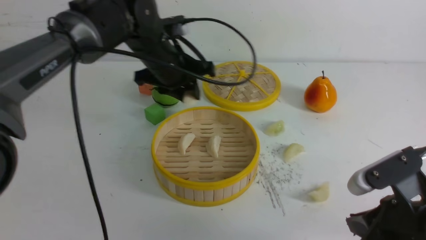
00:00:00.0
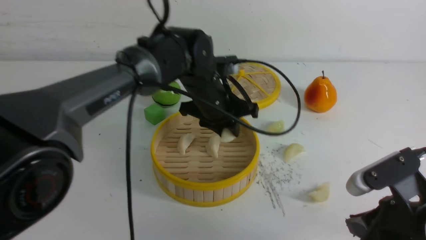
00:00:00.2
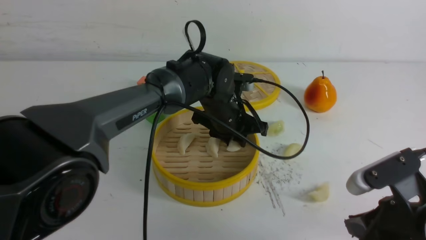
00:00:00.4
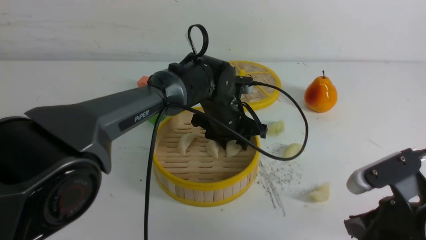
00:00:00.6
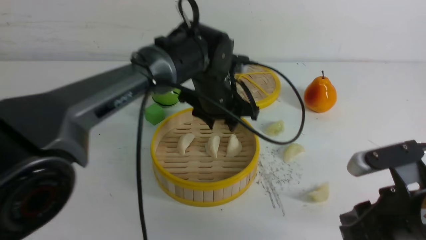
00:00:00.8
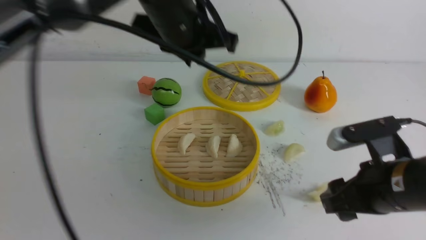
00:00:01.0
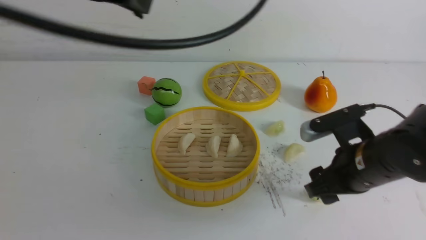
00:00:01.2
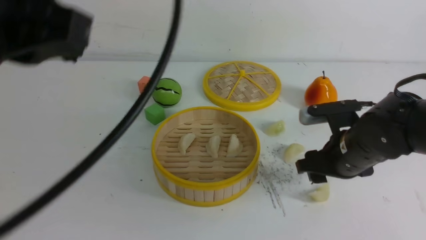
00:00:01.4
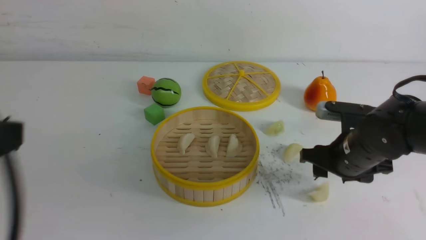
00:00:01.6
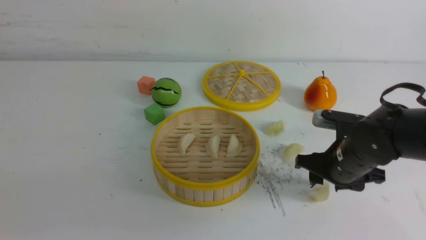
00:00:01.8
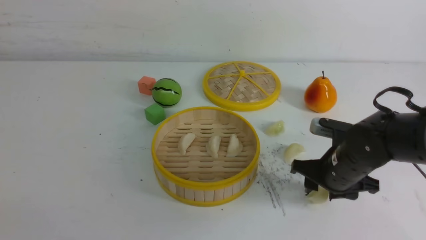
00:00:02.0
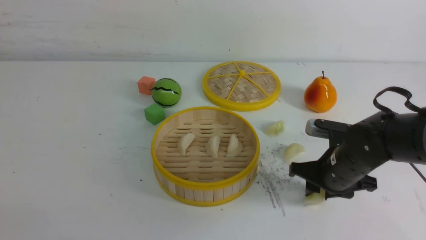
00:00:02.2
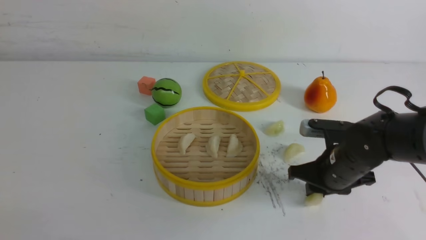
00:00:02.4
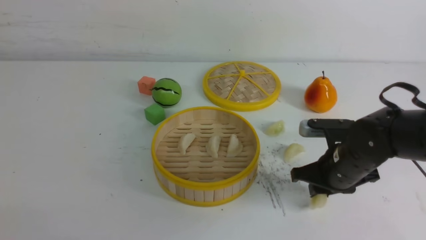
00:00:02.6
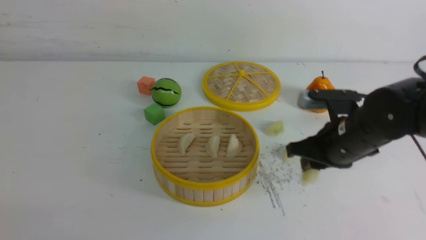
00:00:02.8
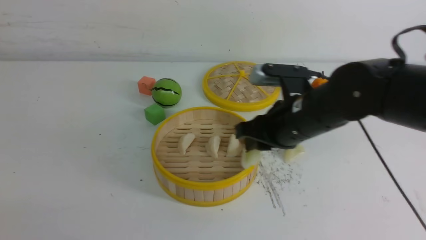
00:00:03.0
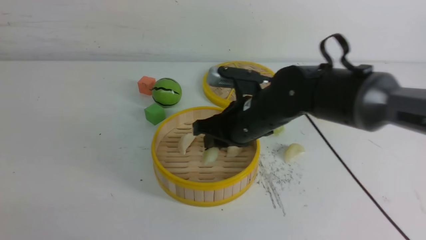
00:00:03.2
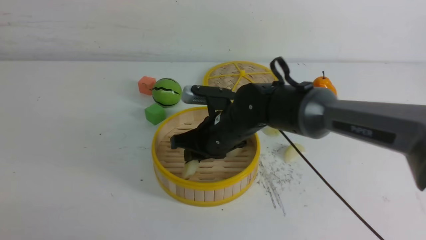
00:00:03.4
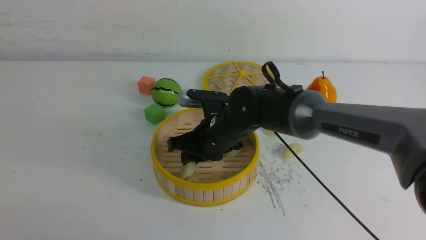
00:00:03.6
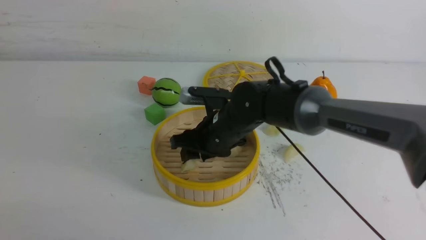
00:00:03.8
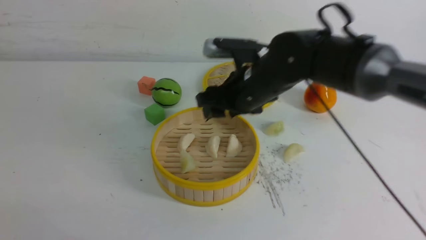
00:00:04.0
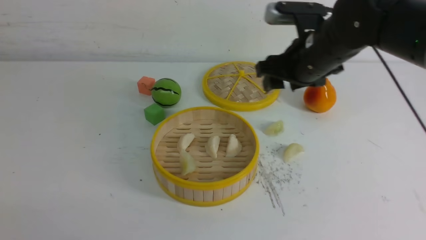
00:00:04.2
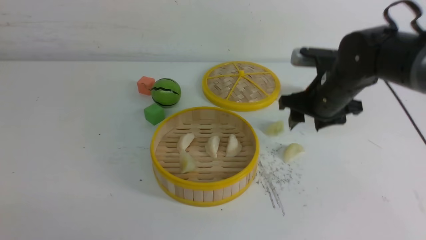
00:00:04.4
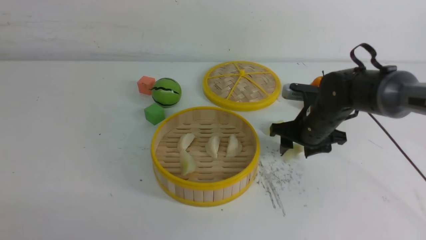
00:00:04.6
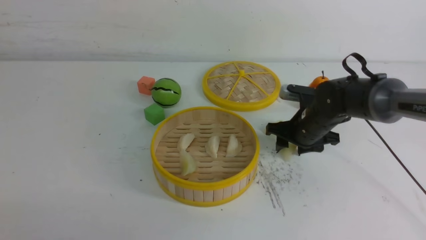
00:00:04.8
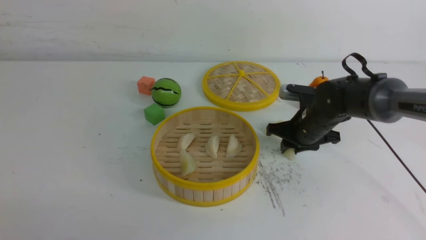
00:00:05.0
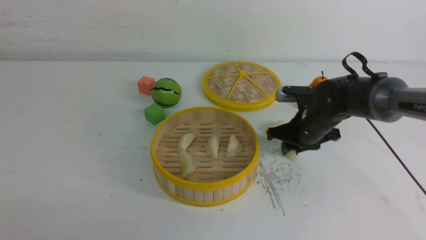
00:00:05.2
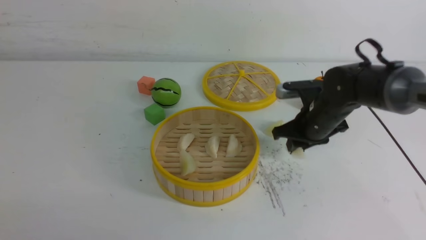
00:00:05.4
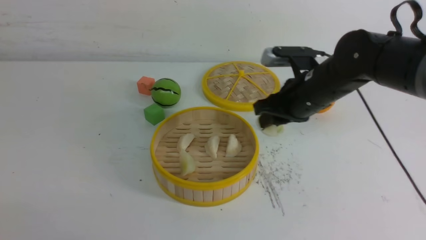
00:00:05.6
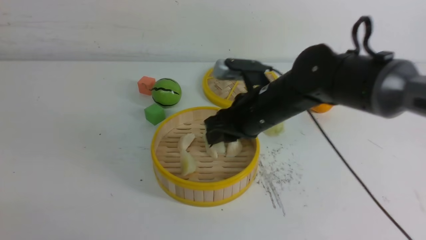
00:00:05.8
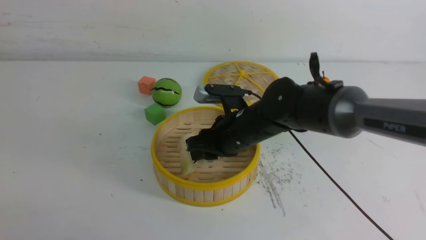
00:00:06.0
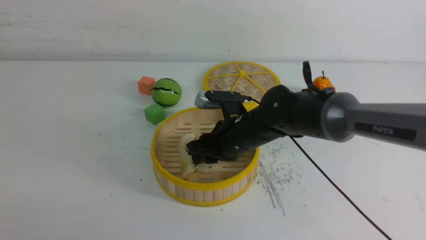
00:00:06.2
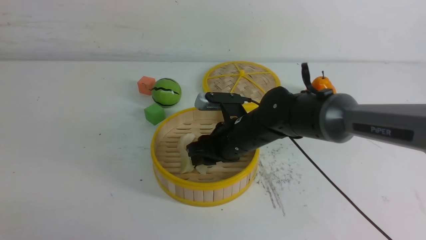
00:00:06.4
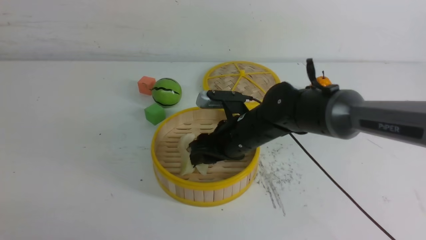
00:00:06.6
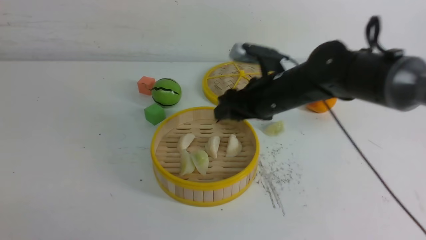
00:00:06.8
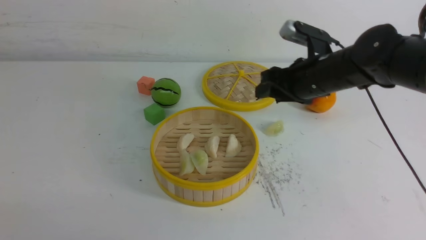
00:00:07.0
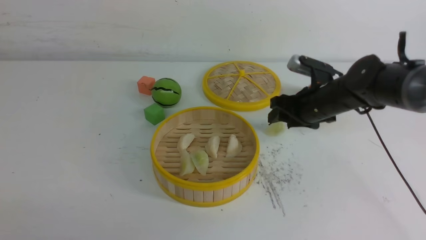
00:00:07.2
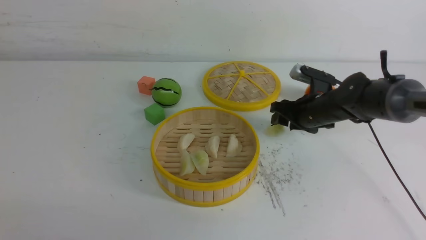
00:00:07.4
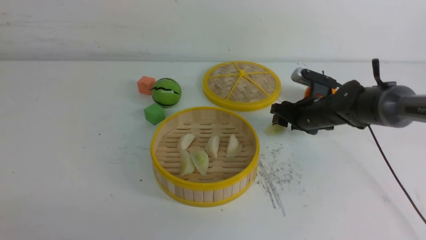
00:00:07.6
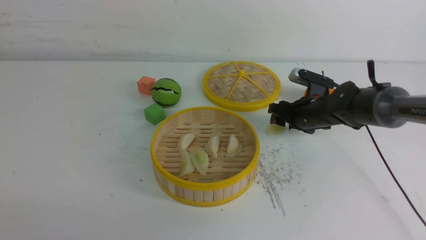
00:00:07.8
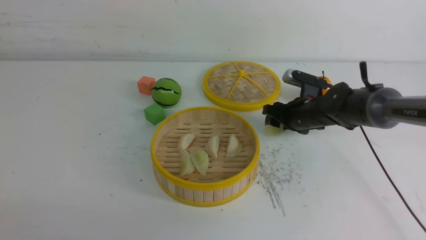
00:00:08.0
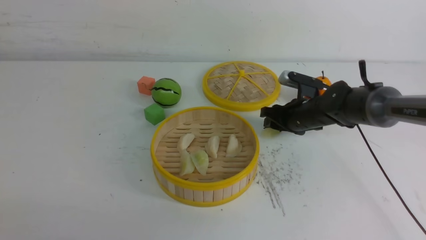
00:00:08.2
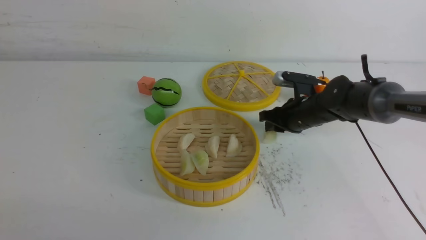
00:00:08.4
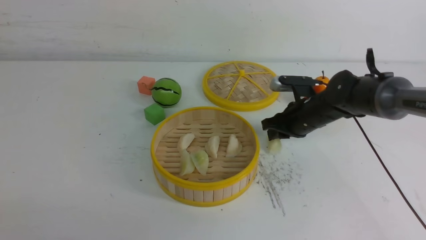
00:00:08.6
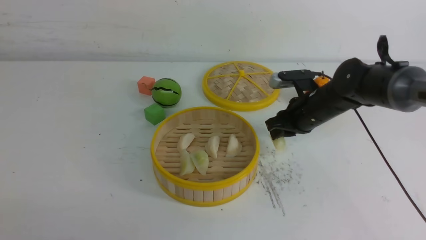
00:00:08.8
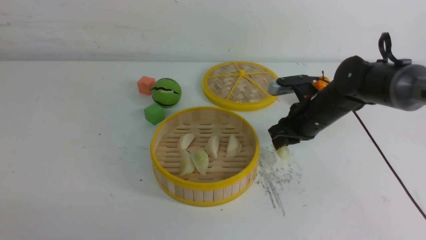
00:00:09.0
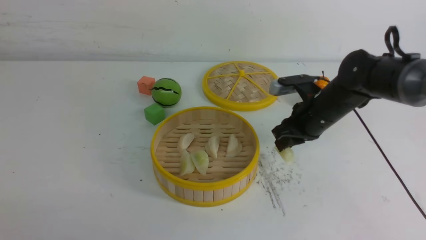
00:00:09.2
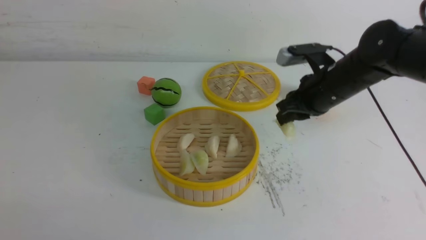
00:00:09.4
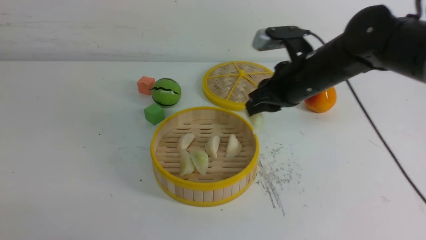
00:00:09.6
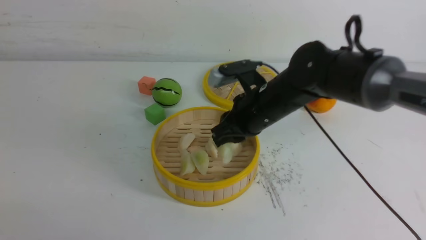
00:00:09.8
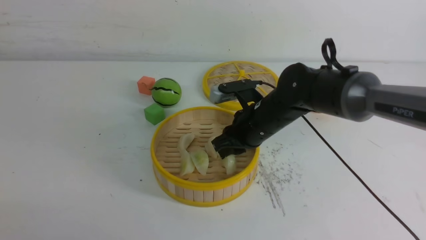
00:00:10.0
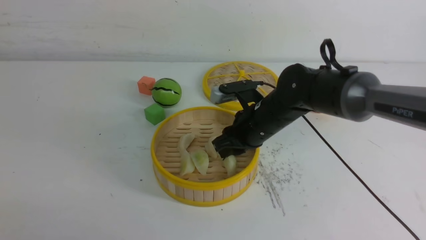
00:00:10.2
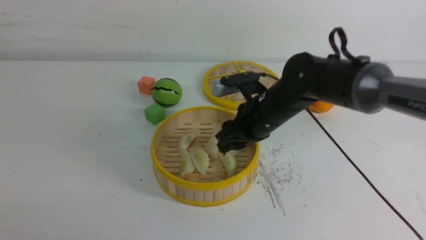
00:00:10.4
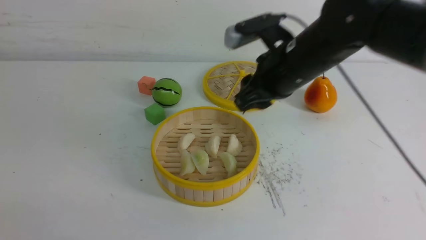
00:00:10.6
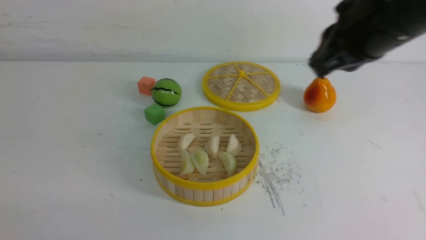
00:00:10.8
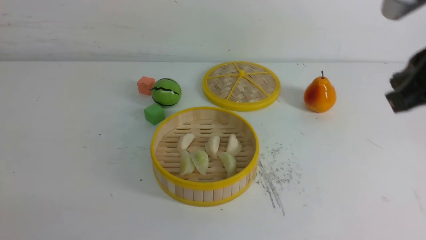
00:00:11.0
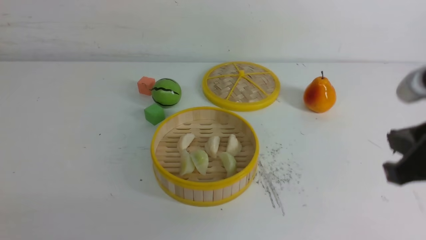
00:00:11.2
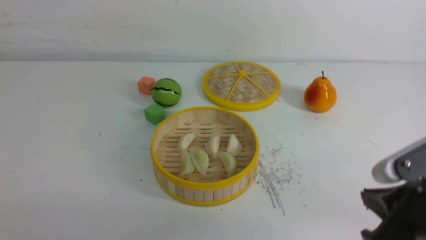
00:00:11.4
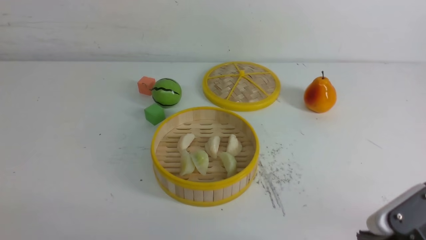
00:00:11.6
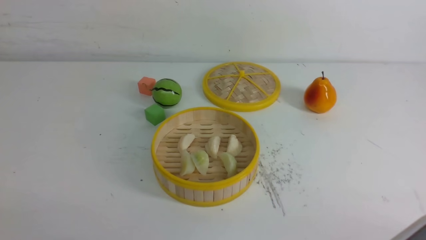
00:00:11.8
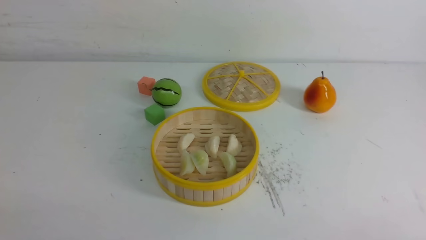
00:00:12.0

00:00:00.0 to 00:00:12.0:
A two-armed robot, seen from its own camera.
Task of the whole recording: put the dumplings into the steamer on the white table.
Step, 00:00:00.0 to 00:00:00.6: use the left arm to put the dumpling into the steamer.
Step, 00:00:00.8 to 00:00:02.6: use the right arm to grab a dumpling.
Step, 00:00:02.8 to 00:00:03.6: use the right arm to put the dumpling into the steamer.
Step, 00:00:03.8 to 00:00:05.2: use the right arm to grab a dumpling.
Step, 00:00:05.6 to 00:00:06.6: use the right arm to put the dumpling into the steamer.
00:00:00.0 to 00:00:01.6: The right gripper goes some 15 cm forward, and opens up. The left gripper heads backward and to the left, covering roughly 40 cm, and closes up.
00:00:01.6 to 00:00:03.0: The left gripper heads downward, covering about 10 cm; the right gripper is displaced to the left and upward by some 10 cm, and closes up.
00:00:03.0 to 00:00:04.4: The right gripper moves forward and to the right, roughly 10 cm, and opens its fingers.
00:00:04.4 to 00:00:06.0: The right gripper is displaced to the left by roughly 10 cm, and closes up.
00:00:06.0 to 00:00:07.6: The right gripper heads to the right and forward, covering roughly 20 cm, and opens its fingers.
00:00:07.6 to 00:00:09.0: The right gripper ends up roughly 5 cm from where it was, and closes.
00:00:09.0 to 00:00:10.4: The right gripper goes approximately 10 cm to the left and upward.
00:00:10.4 to 00:00:12.0: The right gripper is displaced backward and to the right by some 35 cm, and closes up.

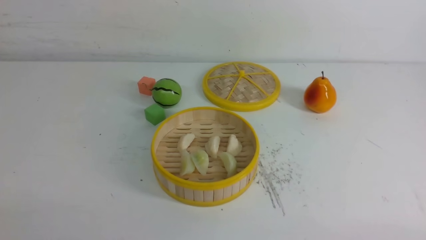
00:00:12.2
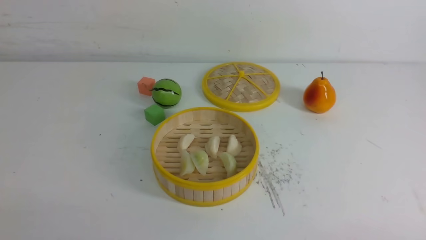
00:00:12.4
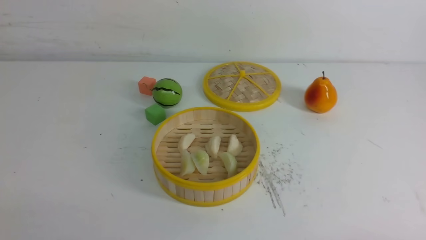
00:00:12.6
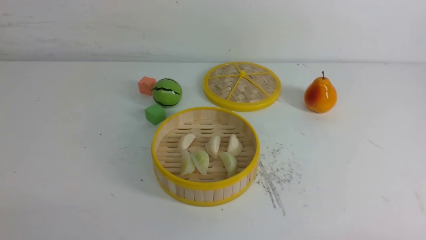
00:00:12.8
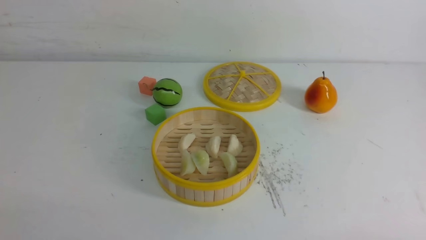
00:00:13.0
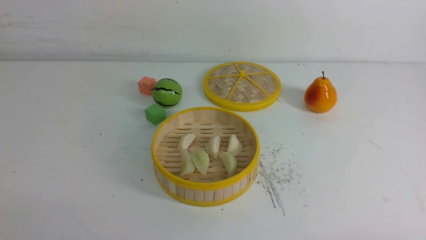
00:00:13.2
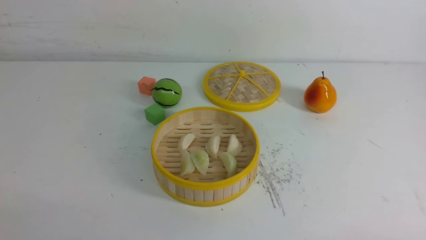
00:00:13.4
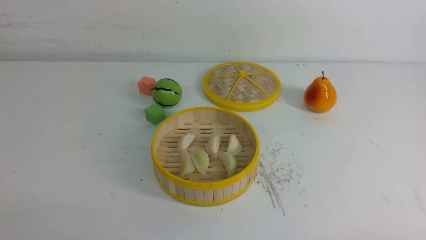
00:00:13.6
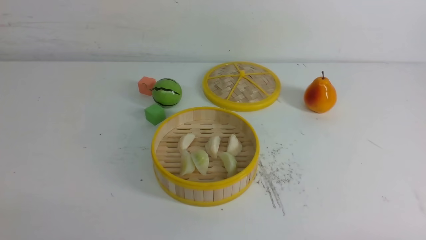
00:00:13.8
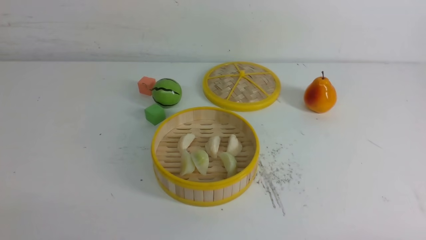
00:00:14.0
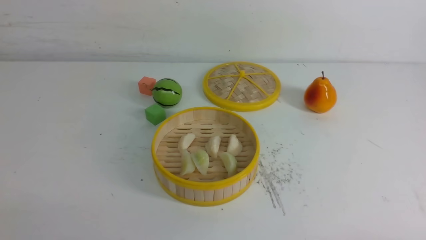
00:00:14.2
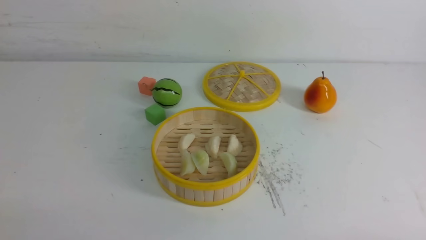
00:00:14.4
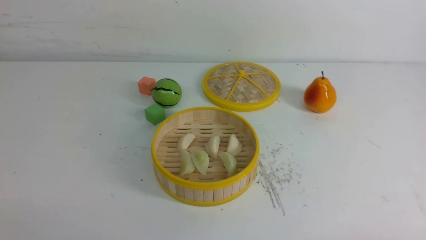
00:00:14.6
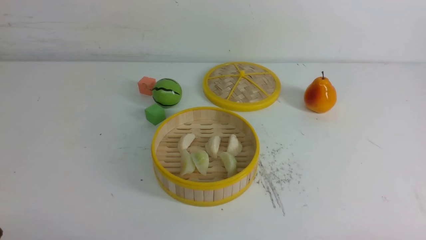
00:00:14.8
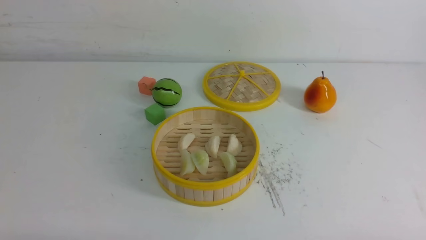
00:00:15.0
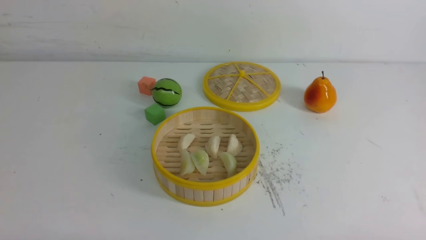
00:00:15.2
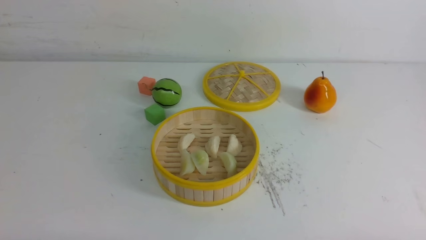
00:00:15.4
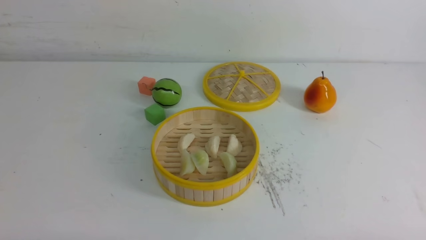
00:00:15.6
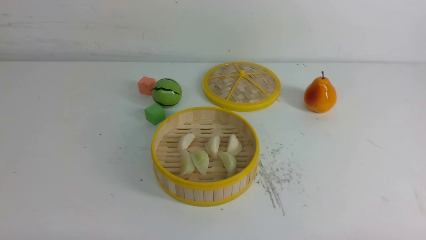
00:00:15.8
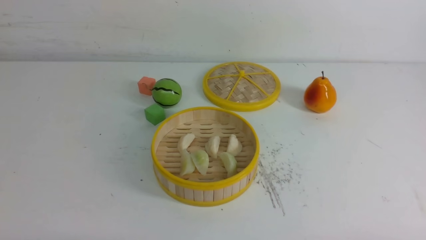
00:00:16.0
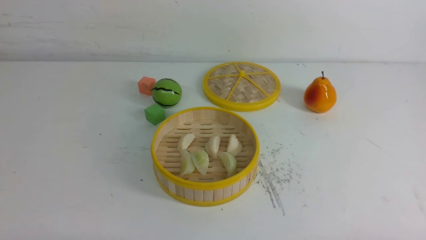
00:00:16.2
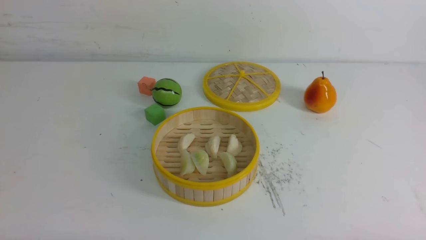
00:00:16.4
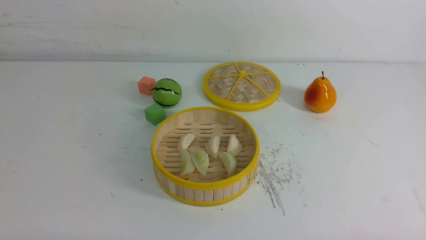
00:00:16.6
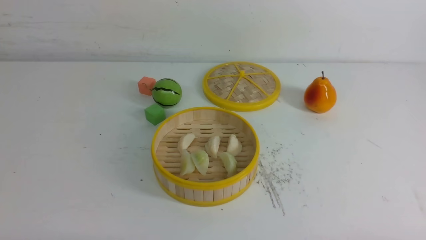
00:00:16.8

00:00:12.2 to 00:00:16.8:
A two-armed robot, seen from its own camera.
Task of the whole recording: put the dumplings into the steamer on the white table.
00:00:15.2 to 00:00:16.8: Neither gripper changes place.
